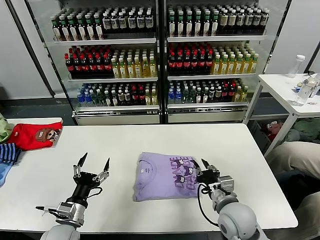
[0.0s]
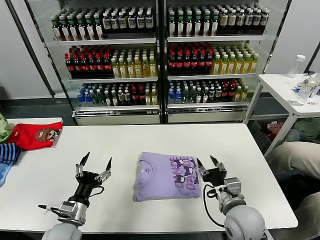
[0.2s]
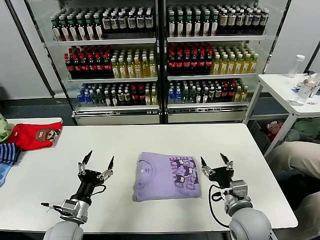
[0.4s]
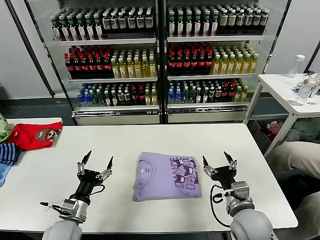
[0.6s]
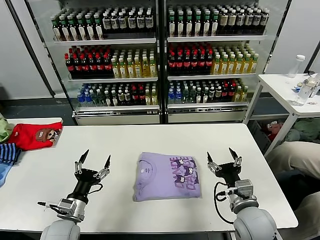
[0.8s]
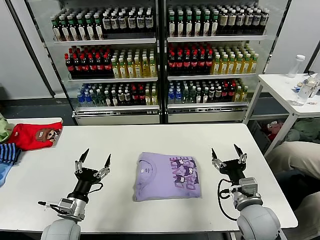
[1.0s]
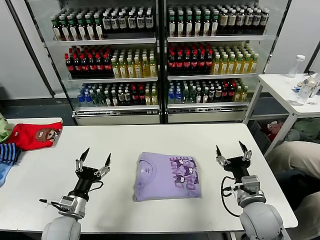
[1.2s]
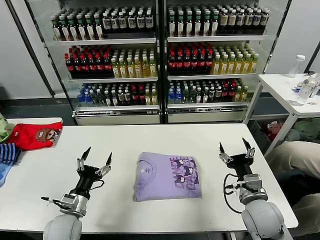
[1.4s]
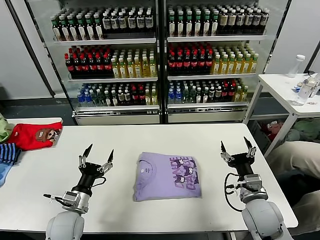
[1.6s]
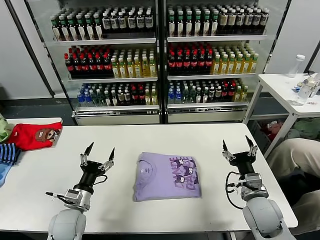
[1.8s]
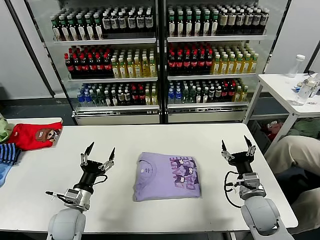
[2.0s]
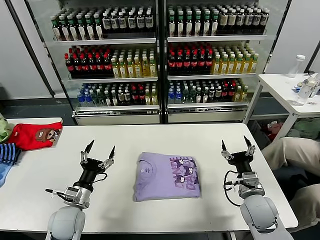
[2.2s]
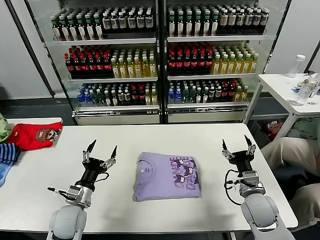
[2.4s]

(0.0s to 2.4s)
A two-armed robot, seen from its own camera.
Task of the whole recording: fold and organize the clothes.
0.0s - 1.2s: The right gripper goes some 5 cm to the right, and opens its fingers.
1.2s - 2.4s: The right gripper ends up approximately 5 cm from where it was.

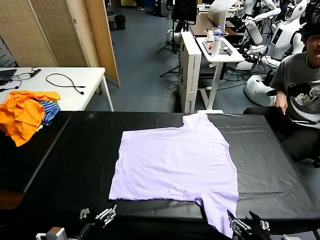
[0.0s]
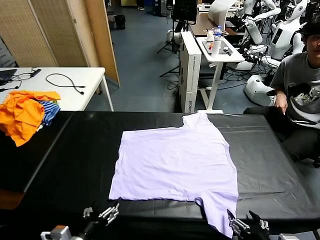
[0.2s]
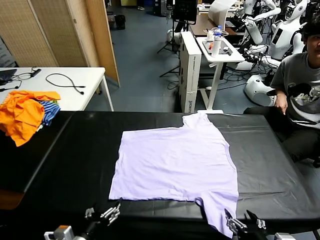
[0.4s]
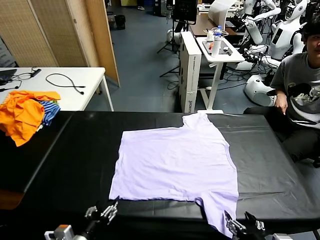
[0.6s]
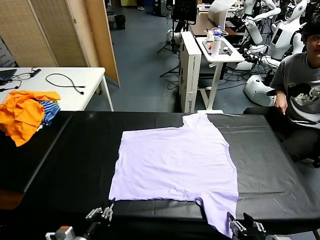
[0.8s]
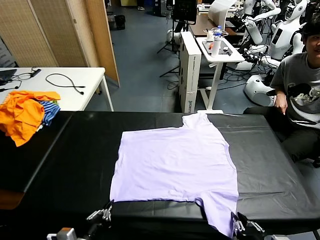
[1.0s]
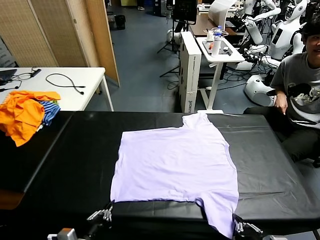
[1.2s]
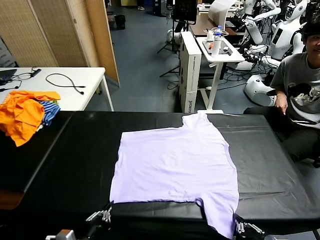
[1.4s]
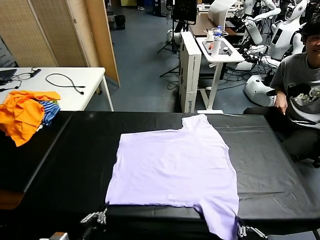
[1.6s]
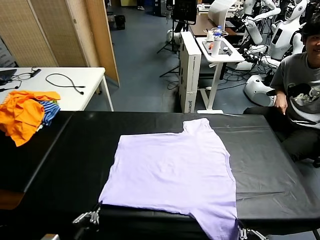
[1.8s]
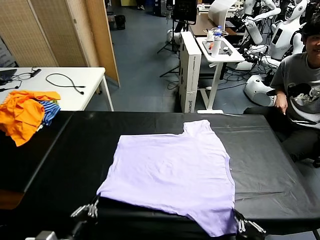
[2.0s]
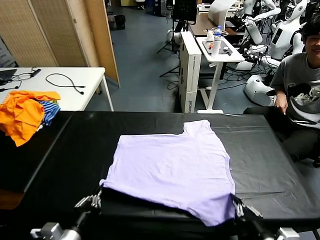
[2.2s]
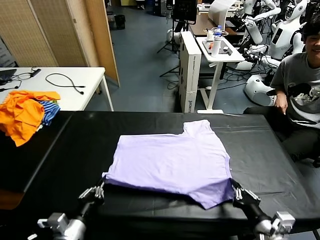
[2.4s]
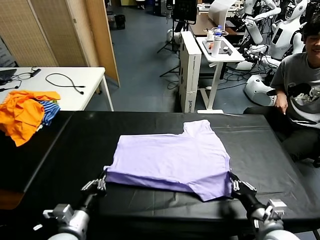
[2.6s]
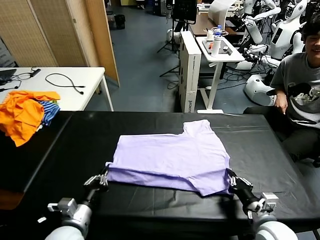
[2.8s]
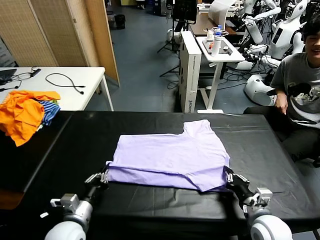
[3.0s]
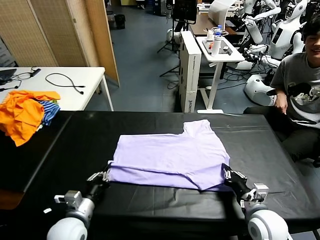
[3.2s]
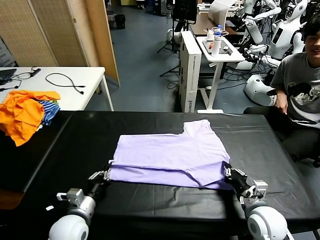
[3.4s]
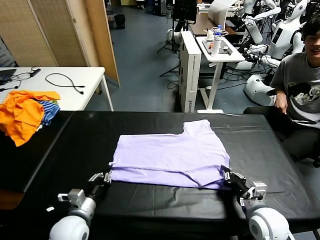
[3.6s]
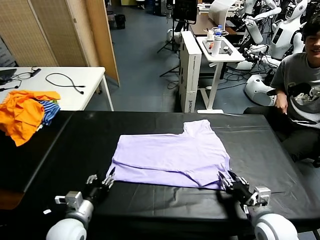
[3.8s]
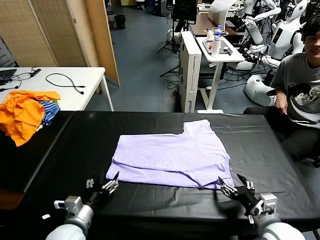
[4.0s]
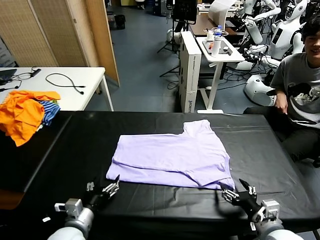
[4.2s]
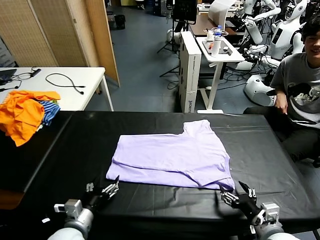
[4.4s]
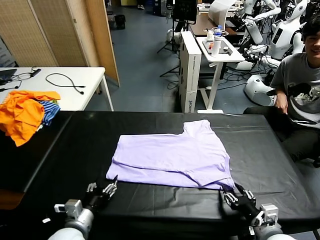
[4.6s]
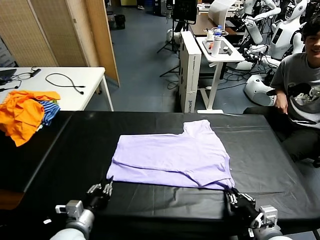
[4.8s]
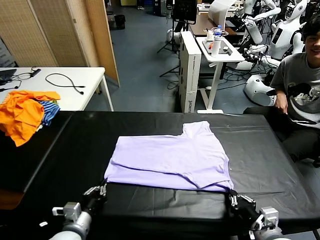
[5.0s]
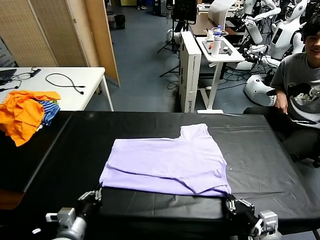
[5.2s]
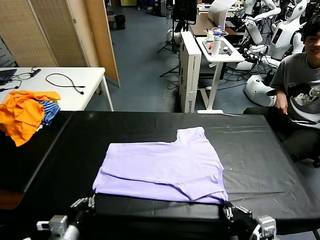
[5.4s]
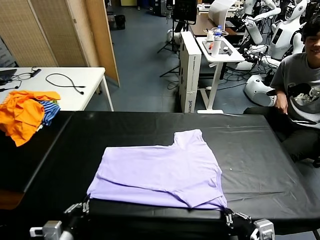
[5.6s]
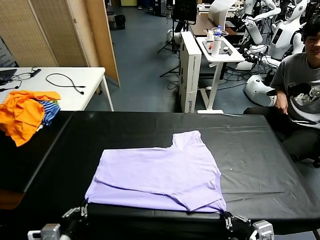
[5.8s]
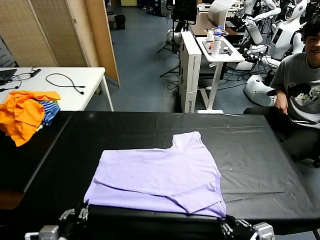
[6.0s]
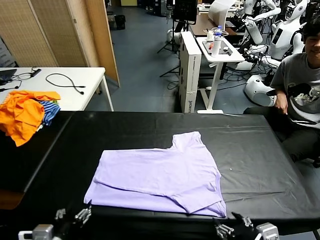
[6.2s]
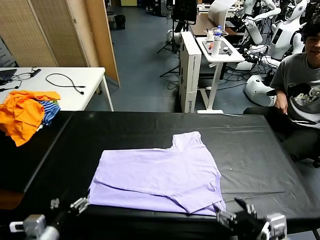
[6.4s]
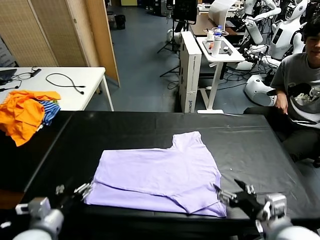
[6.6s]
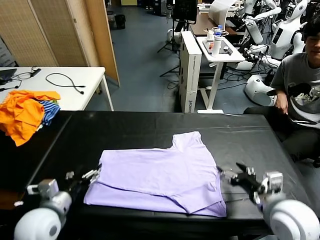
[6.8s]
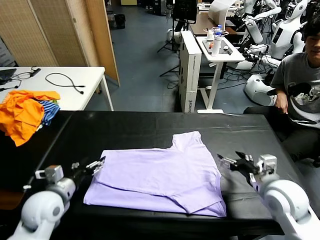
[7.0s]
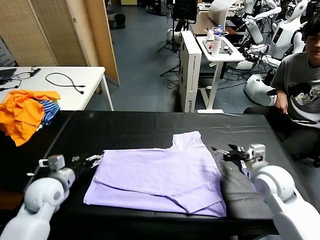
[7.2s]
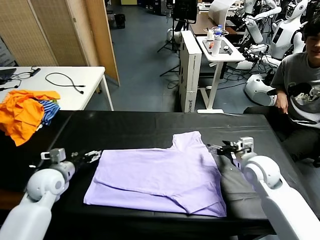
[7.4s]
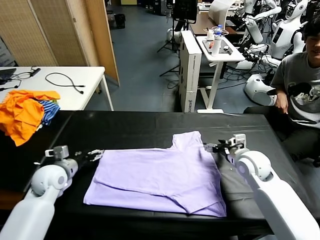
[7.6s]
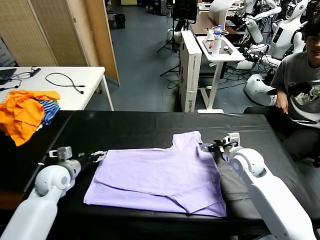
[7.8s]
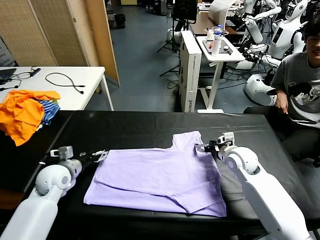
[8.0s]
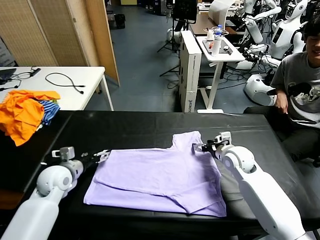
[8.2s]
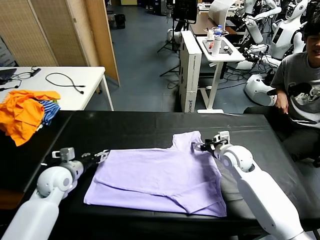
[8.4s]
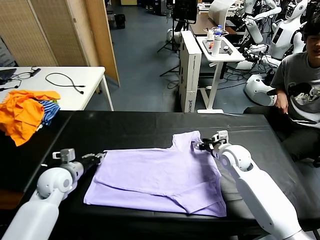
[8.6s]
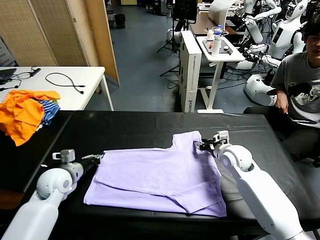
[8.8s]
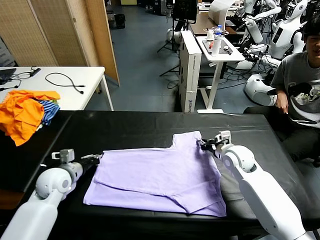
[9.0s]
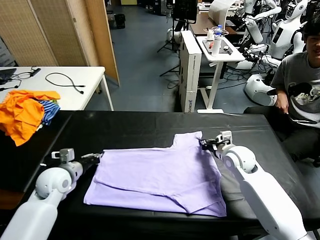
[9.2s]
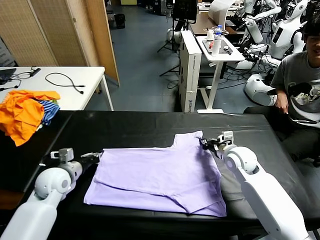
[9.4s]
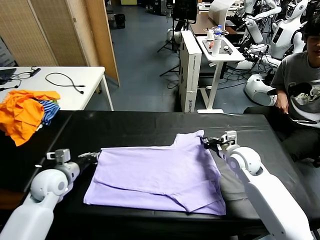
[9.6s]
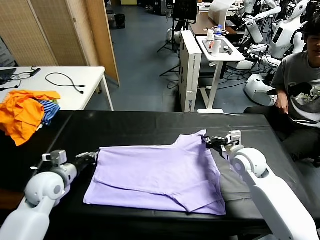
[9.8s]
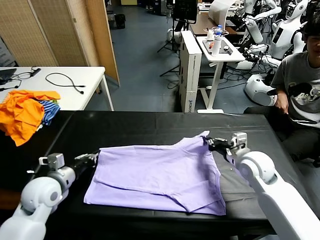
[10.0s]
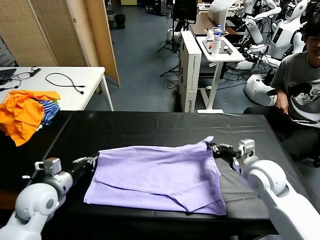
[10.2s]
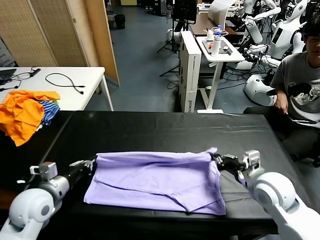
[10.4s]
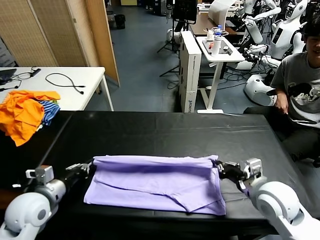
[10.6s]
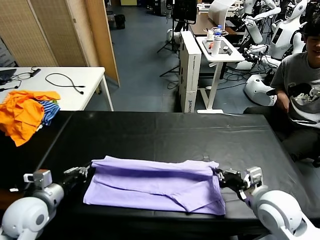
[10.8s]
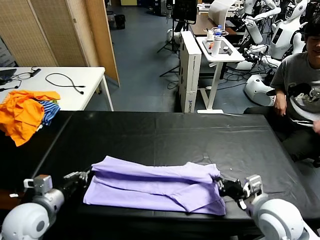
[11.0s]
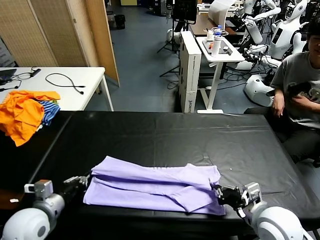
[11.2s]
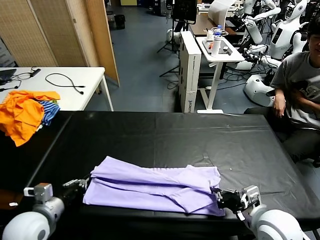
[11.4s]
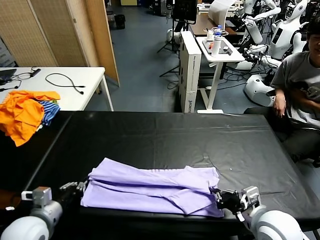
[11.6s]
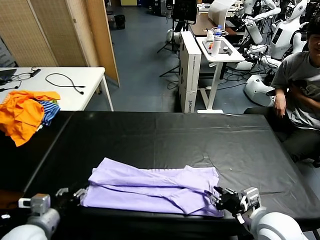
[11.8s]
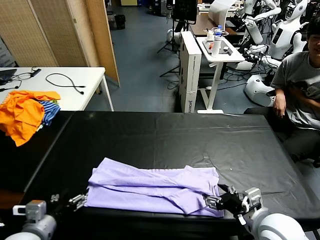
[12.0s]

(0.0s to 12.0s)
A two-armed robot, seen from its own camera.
Task of the whole recording: fold and organize the clothes.
Step, 0.0s - 1.4s: use both grippers simultaneously to clamp the lower edge of the clothing fabric.
Step, 1.6s - 3.8s: use both grippers to drag the lower edge of the fabric forward and fold it over the upper edge.
Step, 4.0s - 6.2s: Drag the clothes downward with both gripper.
Step, 6.4s - 8.8s: use both grippers simultaneously to clamp the upper edge of the clothing fabric.
1.6s - 3.0s: Both grippers move forward, roughly 15 cm.
3.0s - 4.4s: The left gripper opens. The right gripper is displaced backward by some 5 cm, and opens up.
4.4s - 6.0s: The left gripper travels backward by roughly 10 cm, and closes its fingers, while the right gripper goes about 10 cm backward and upward, and opens its fingers.
6.0s - 7.6s: The two grippers go some 30 cm forward. The left gripper opens up.
7.6s - 9.0s: The right gripper closes up, while the left gripper closes its fingers.
9.0s - 10.4s: The left gripper goes roughly 10 cm backward. Meanwhile the right gripper moves backward, roughly 15 cm.
10.4s - 12.0s: The two grippers go about 10 cm backward. The left gripper opens; the right gripper opens.

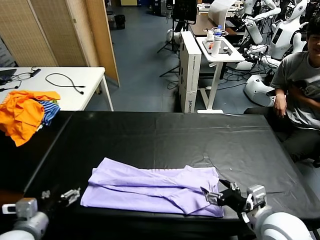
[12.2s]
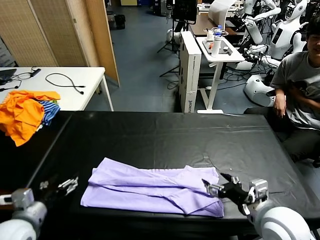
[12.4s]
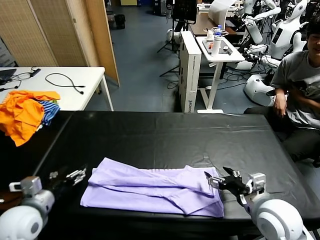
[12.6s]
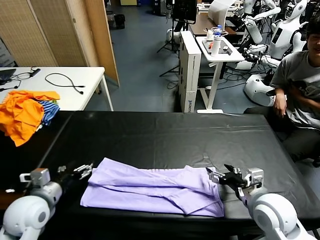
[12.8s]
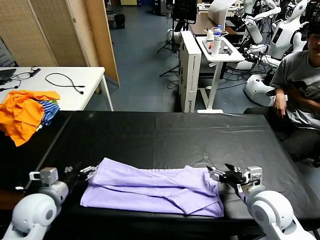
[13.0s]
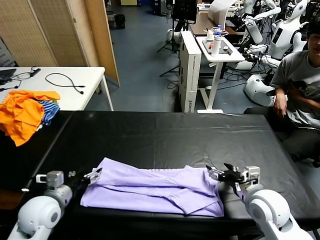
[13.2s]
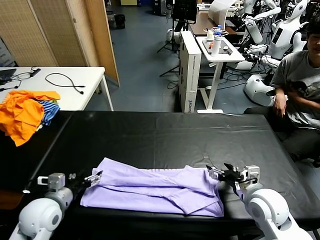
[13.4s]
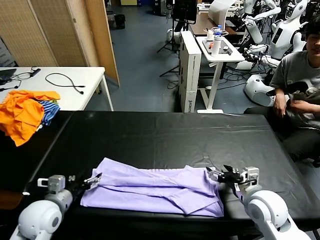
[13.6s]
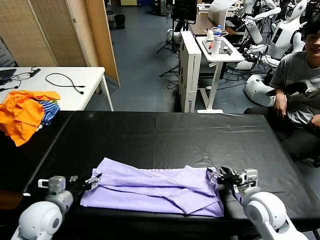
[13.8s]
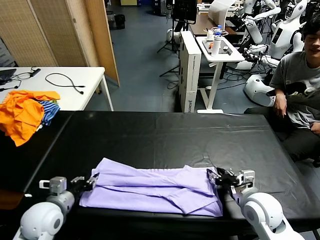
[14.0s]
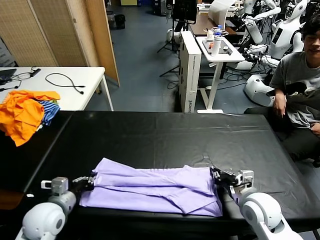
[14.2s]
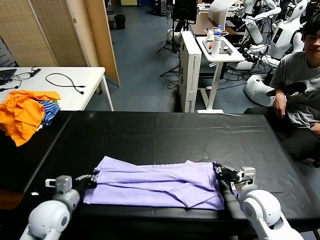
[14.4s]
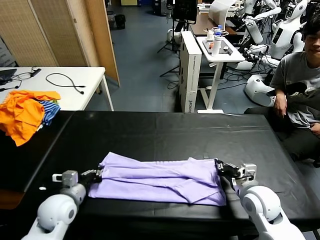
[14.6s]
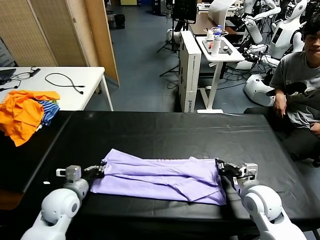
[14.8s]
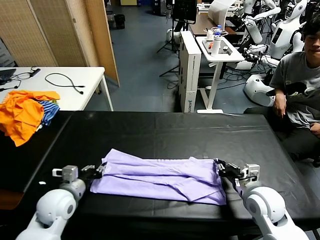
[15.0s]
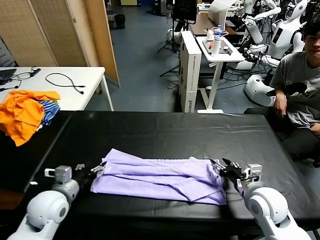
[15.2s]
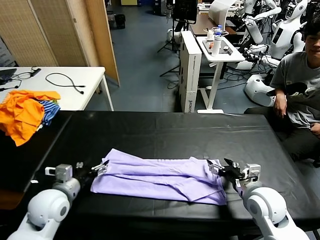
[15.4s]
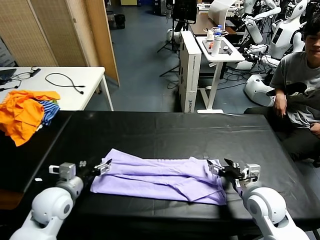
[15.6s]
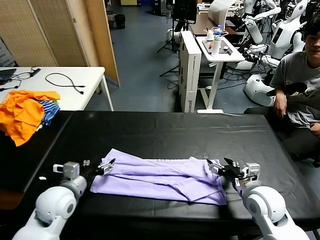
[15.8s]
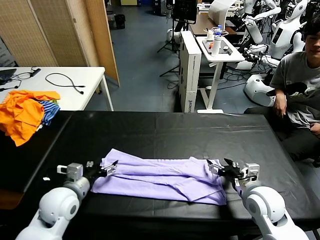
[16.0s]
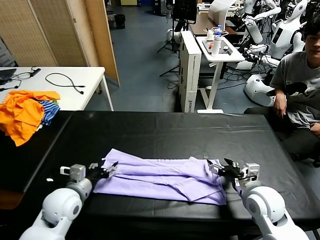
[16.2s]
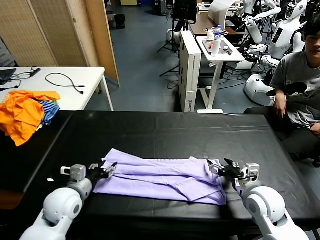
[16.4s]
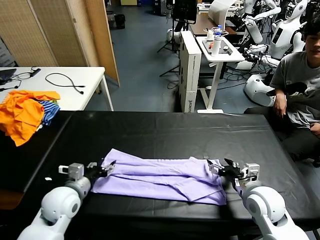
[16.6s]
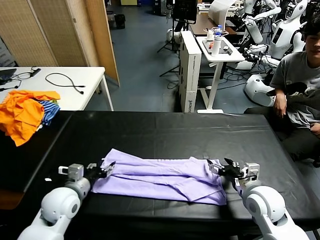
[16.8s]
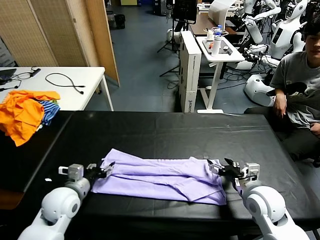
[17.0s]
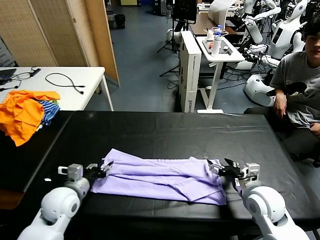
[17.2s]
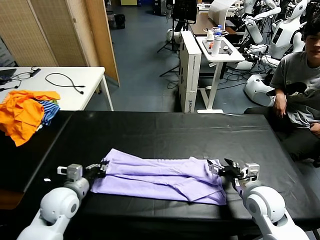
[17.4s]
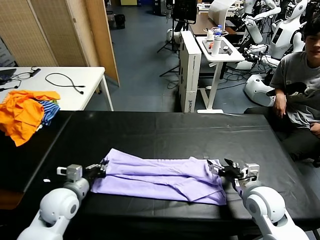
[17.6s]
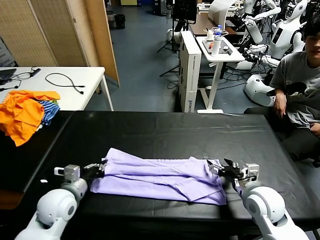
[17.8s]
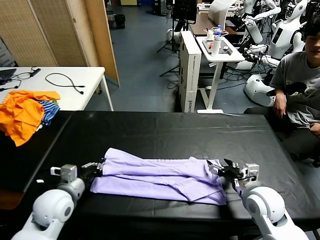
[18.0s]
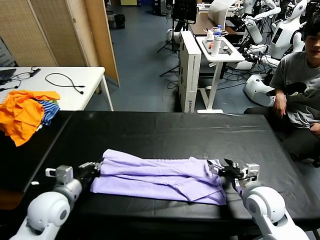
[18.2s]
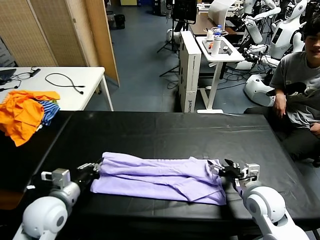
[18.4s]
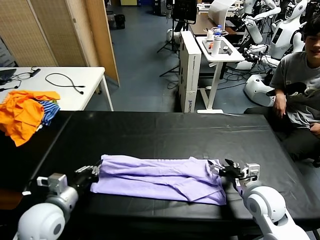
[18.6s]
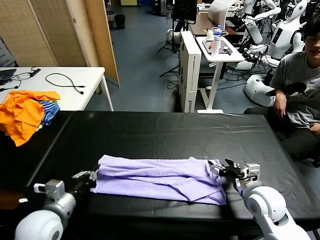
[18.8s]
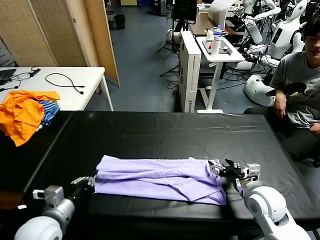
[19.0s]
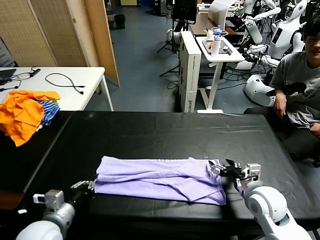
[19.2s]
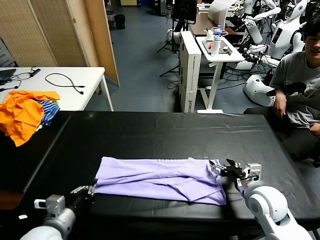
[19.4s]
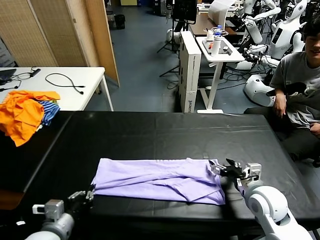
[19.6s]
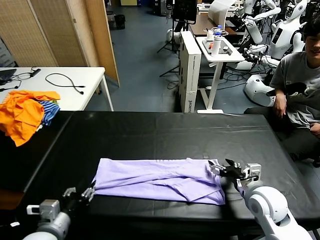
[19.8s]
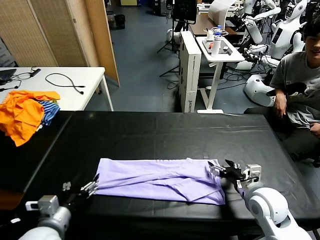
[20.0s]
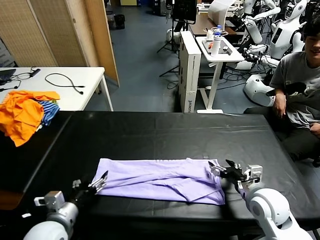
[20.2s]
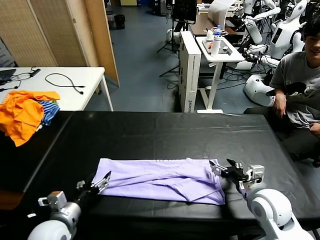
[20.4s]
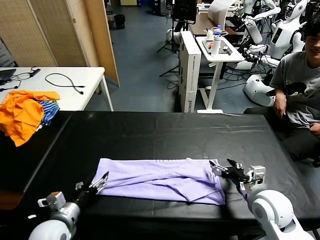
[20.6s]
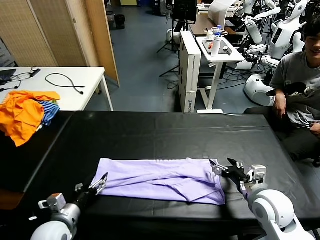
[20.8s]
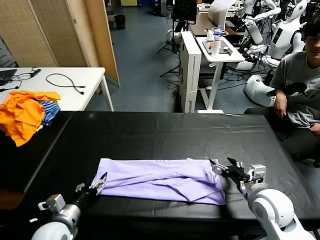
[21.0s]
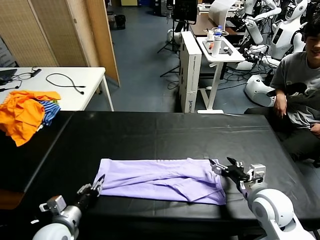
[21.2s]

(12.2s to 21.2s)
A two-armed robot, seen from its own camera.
Task of the whole recording: fold and organize the clothes.
Step, 12.2s - 19.8s: use both grippers to drag the upper edge of the fabric backward and fold it over the lower edge.
12.2s - 13.8s: The left gripper moves forward, some 10 cm; the right gripper is displaced forward and downward by about 10 cm, and closes.
13.8s - 15.2s: The right gripper opens; the left gripper closes and opens again.
15.2s - 16.6s: The grippers stay close to where they were, moving slightly.
16.6s - 18.2s: The left gripper closes up.
18.2s - 19.8s: The left gripper heads backward, covering about 10 cm, and opens.
19.8s - 21.2s: The left gripper heads downward, covering approximately 5 cm, and opens, then closes again.
